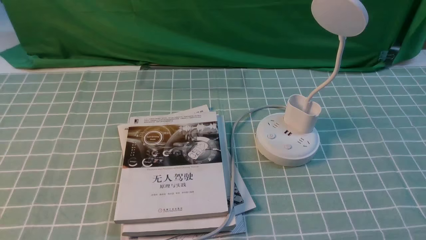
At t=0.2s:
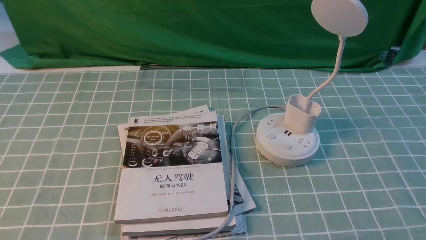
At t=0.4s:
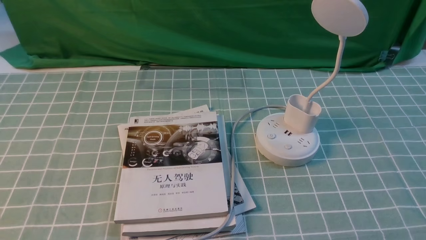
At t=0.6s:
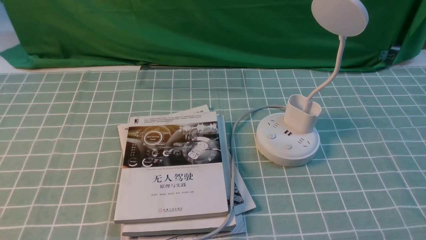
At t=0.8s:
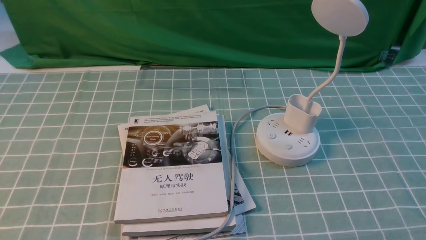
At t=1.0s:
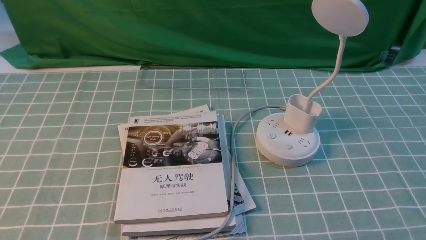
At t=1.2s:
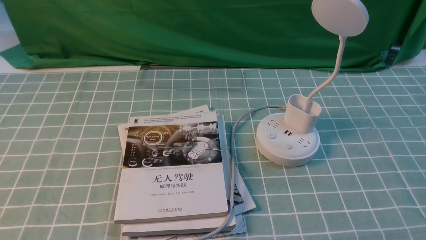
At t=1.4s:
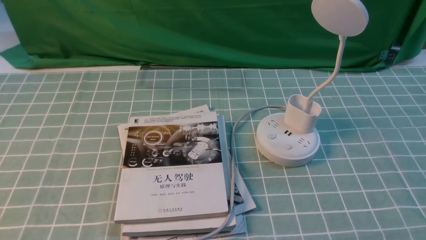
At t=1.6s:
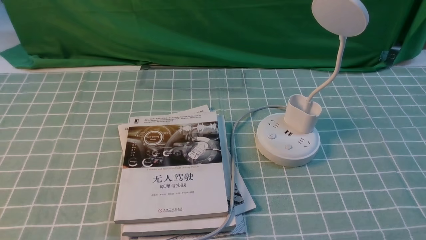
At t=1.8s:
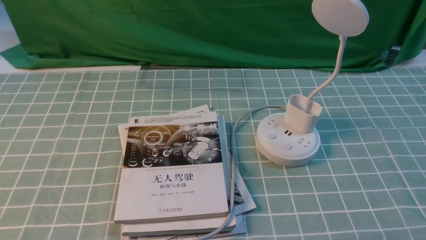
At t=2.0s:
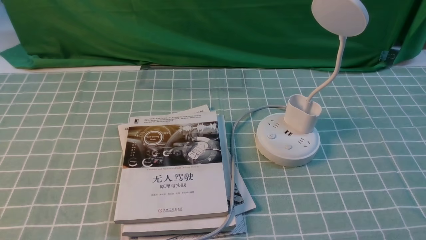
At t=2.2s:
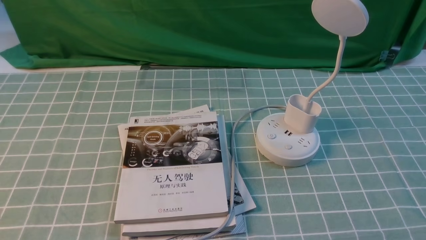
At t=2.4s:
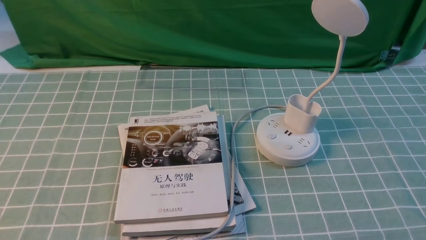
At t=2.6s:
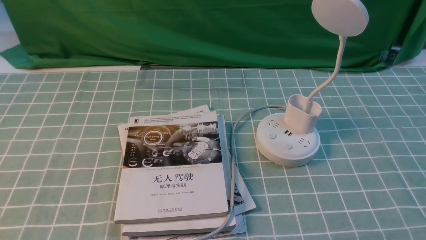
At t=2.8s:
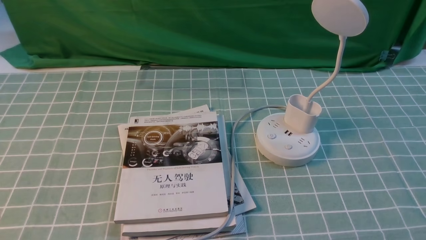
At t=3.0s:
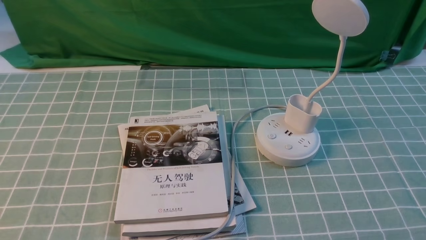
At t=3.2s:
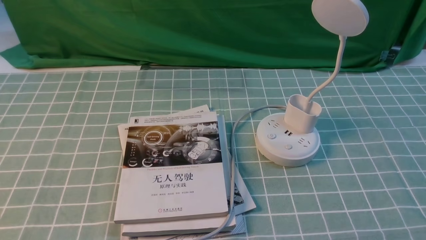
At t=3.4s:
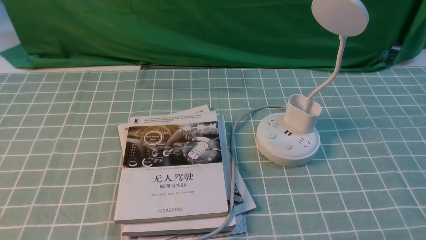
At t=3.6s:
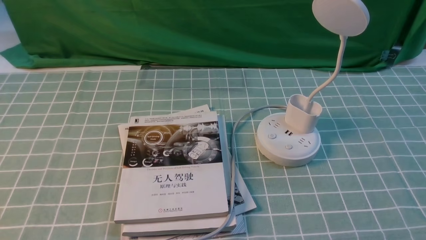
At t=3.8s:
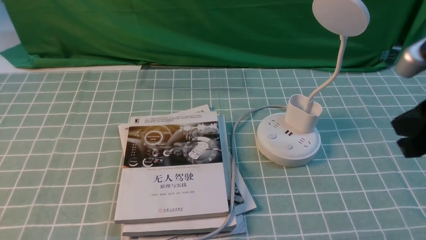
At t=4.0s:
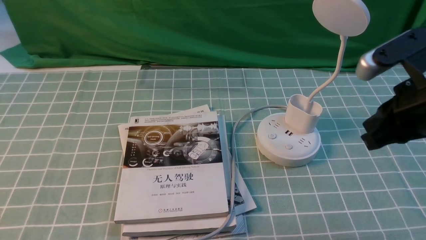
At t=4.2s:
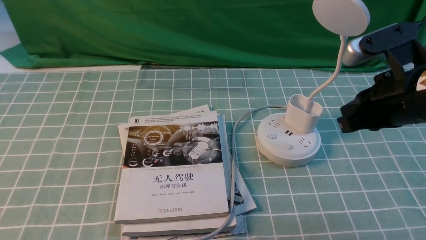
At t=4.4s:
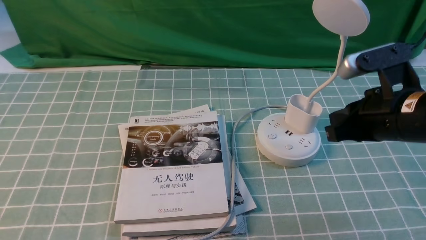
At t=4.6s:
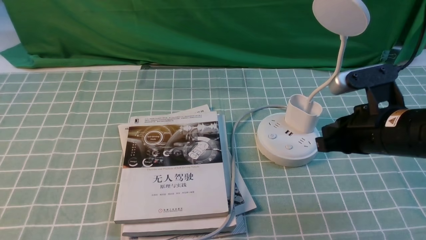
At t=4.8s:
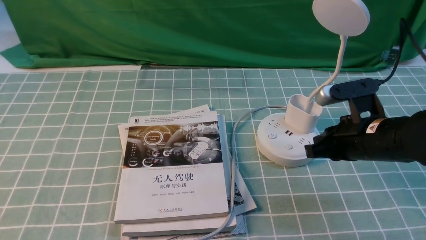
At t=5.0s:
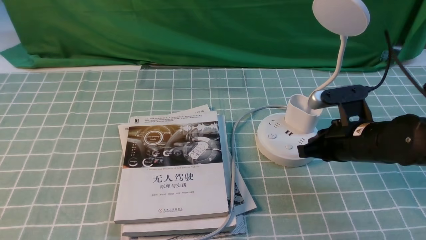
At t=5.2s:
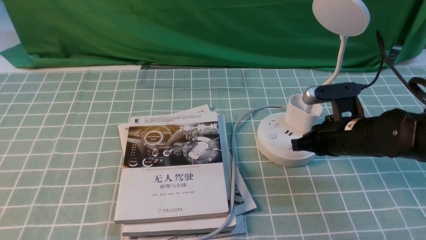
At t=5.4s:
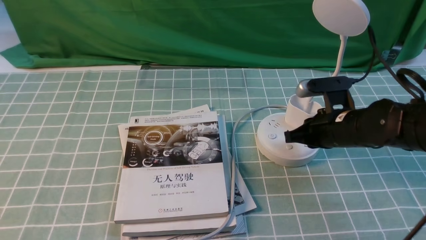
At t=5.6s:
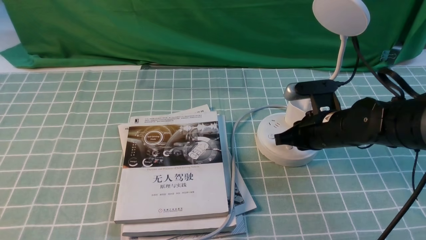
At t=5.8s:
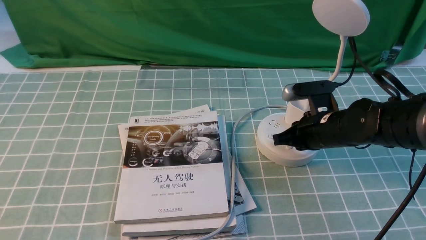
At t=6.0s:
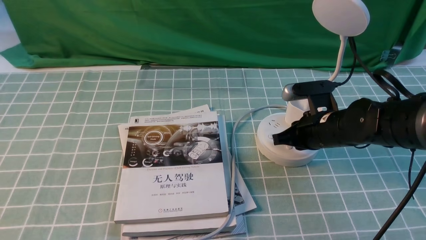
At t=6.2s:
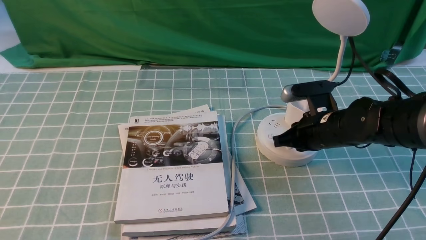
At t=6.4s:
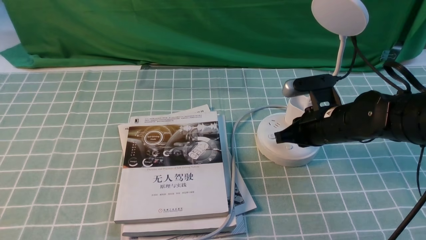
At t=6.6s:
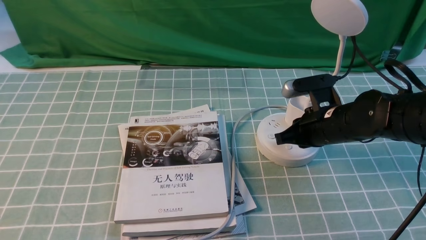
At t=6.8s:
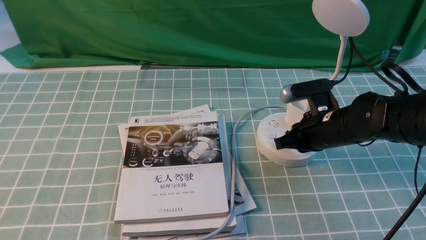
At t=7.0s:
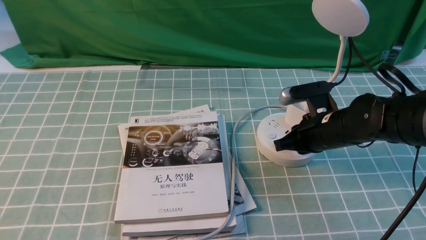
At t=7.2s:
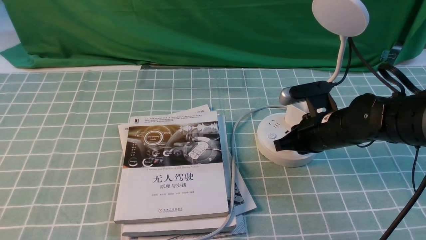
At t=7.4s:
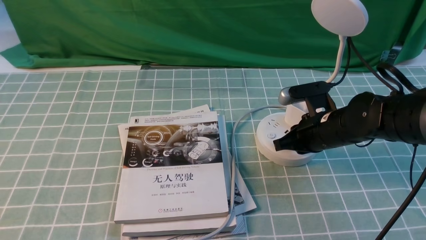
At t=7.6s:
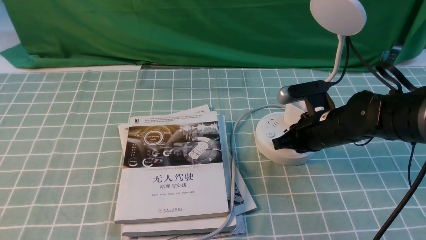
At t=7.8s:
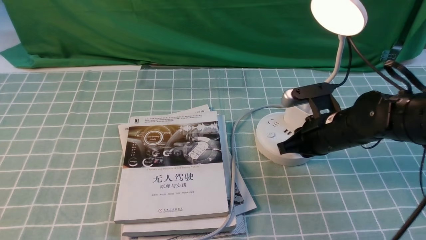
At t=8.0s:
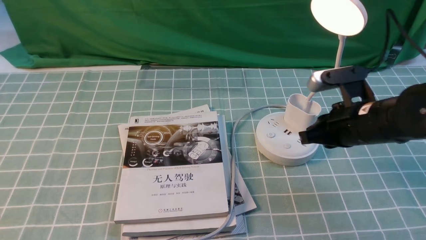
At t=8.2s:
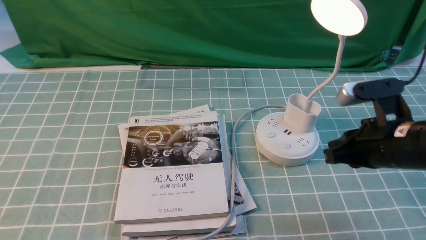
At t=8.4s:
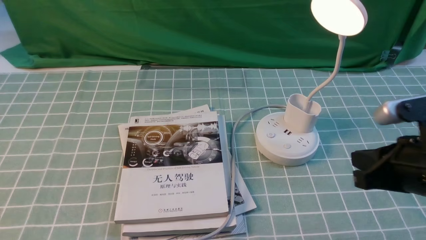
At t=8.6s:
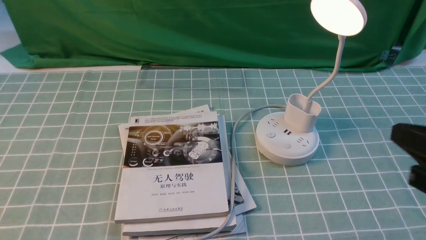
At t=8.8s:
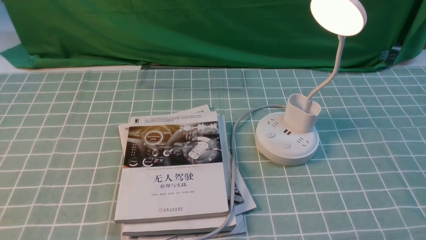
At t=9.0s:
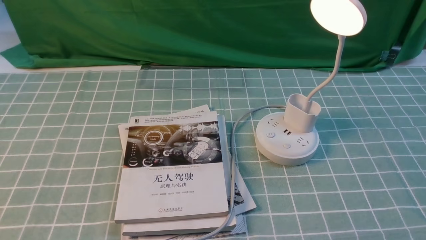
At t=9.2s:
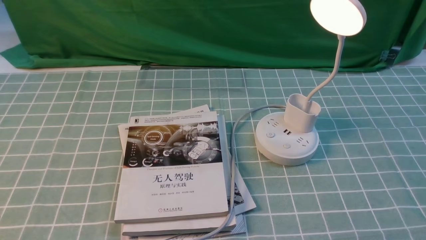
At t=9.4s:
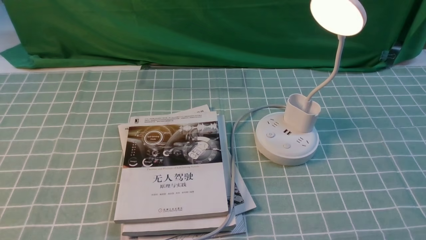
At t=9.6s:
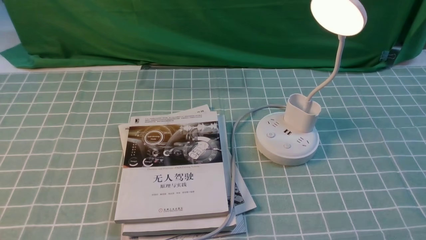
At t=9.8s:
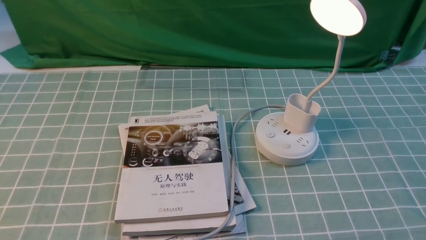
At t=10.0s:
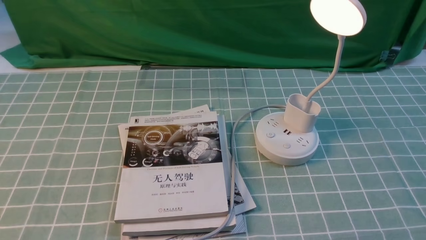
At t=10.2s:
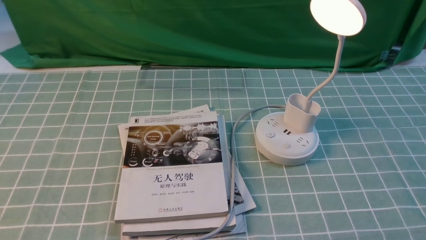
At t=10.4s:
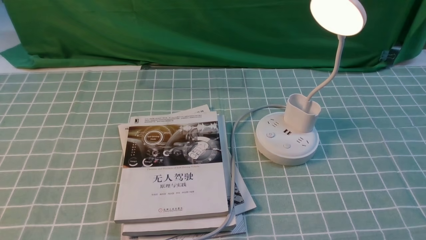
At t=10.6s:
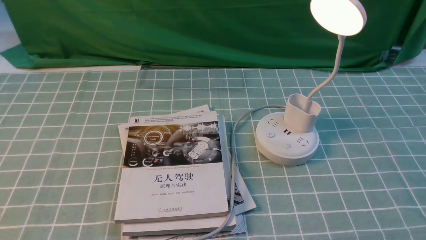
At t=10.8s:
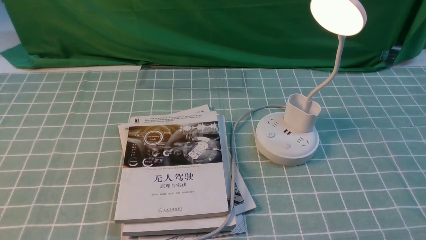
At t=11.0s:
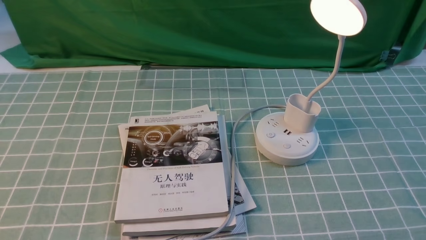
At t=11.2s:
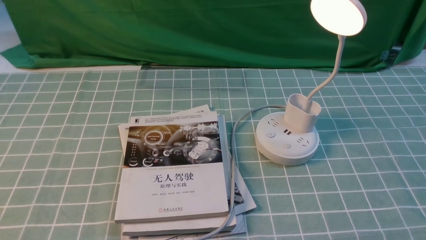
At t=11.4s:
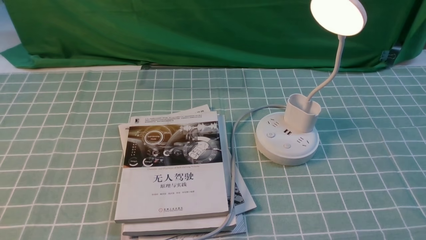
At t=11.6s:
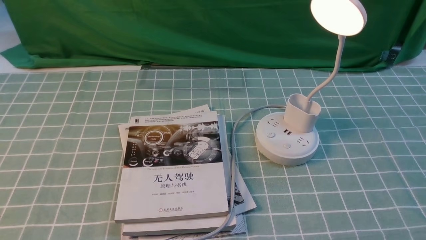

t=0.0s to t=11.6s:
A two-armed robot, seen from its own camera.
Step, t=0.0s to t=8.0s: use the right arm to press the button switch on the lamp holder.
t=2.8s to t=4.4s: The right gripper goes about 25 cm forward and to the left, and closes up.
t=4.4s to t=5.8s: The right gripper heads downward and forward, covering about 15 cm.
t=5.8s to t=7.2s: The grippers move only a little.
t=7.2s to t=8.8s: The right gripper is displaced backward, upward and to the right by approximately 30 cm.
t=10.2s to t=11.6s: The two grippers keep their place.

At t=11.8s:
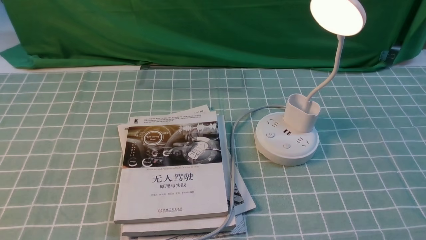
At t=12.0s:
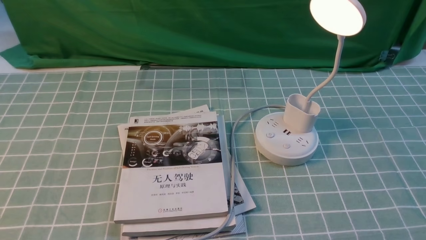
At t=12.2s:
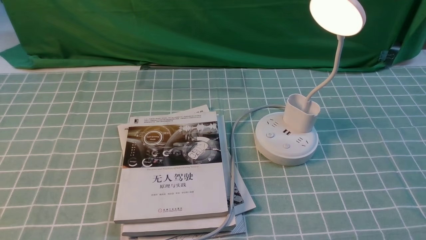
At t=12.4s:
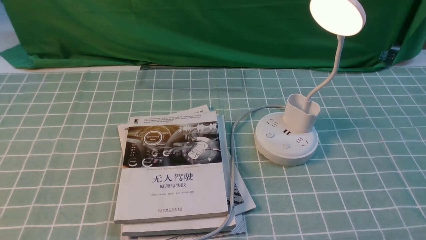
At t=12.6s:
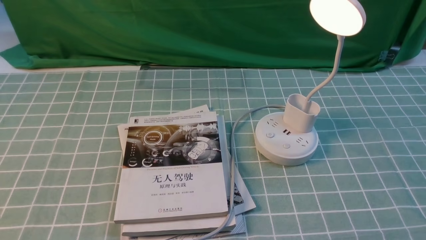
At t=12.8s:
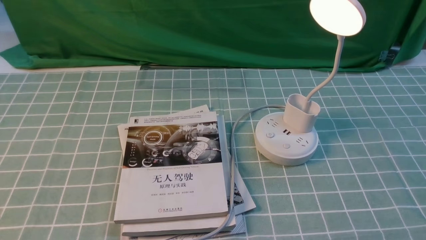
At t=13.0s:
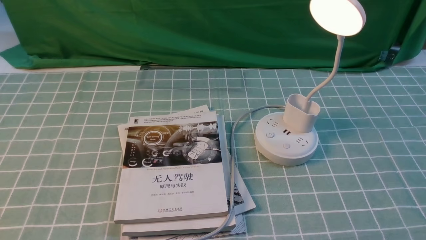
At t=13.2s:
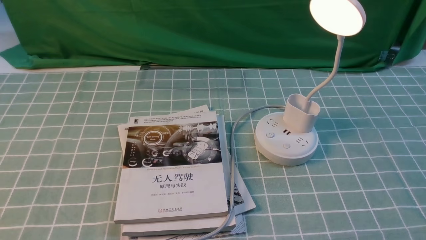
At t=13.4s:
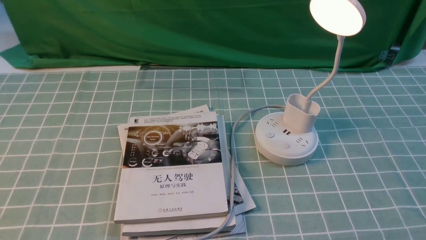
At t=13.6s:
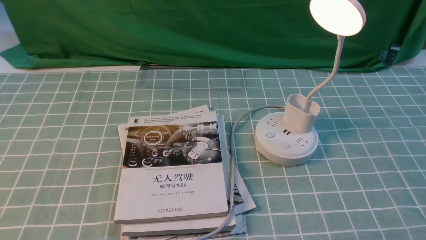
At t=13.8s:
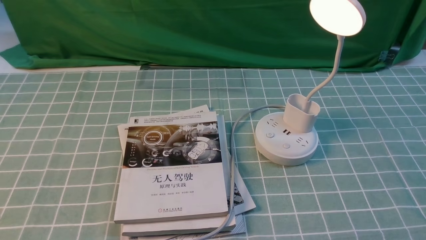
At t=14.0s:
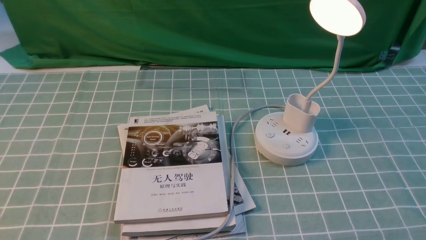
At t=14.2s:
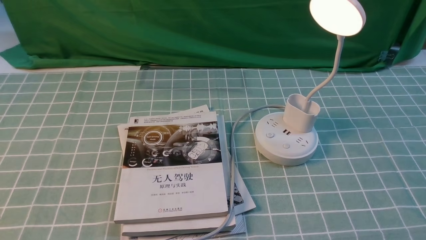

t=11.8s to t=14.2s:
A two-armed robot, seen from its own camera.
t=11.8s to t=14.2s: The two grippers keep their place.

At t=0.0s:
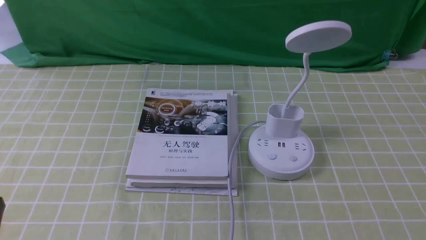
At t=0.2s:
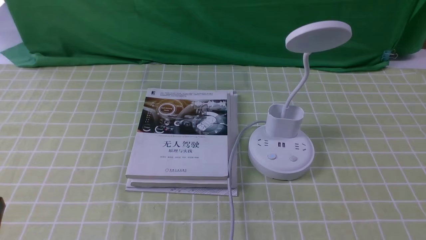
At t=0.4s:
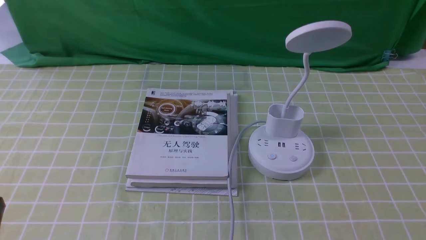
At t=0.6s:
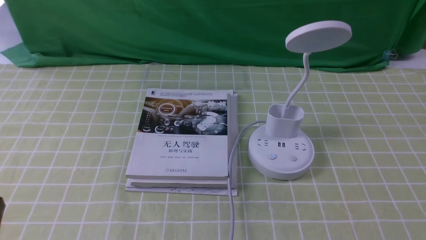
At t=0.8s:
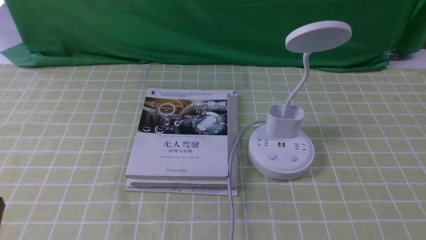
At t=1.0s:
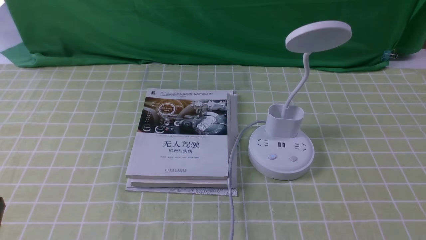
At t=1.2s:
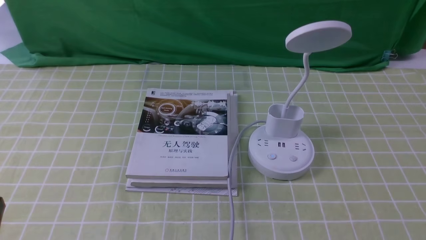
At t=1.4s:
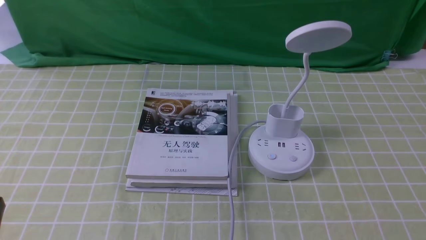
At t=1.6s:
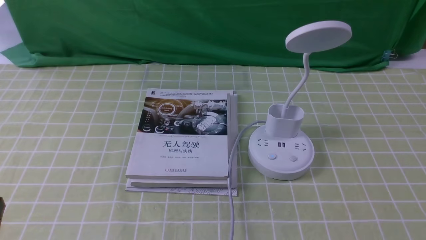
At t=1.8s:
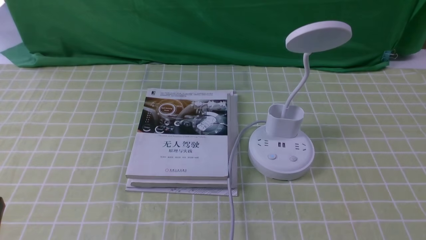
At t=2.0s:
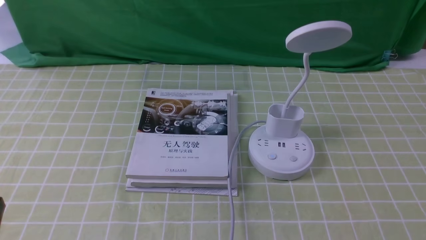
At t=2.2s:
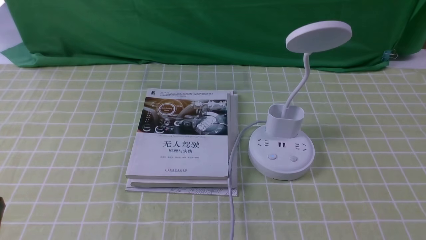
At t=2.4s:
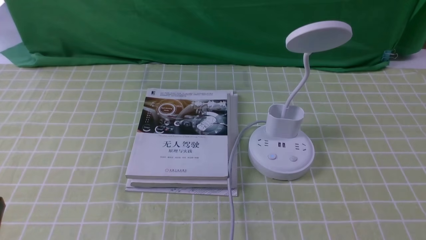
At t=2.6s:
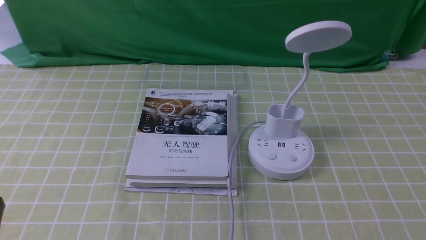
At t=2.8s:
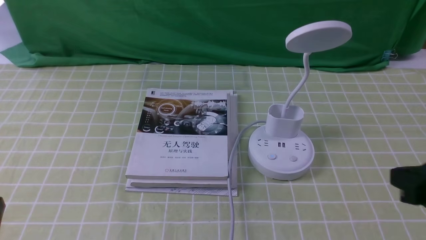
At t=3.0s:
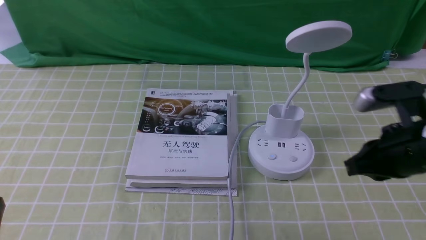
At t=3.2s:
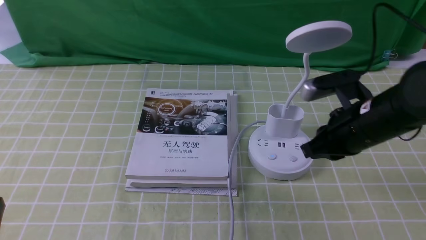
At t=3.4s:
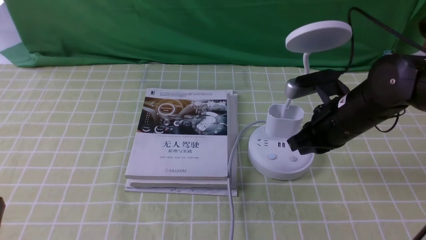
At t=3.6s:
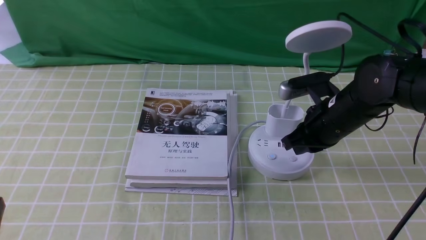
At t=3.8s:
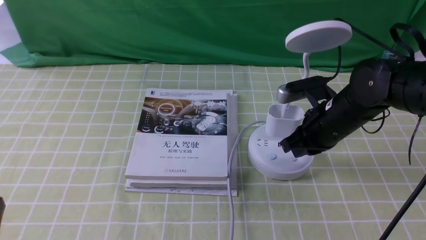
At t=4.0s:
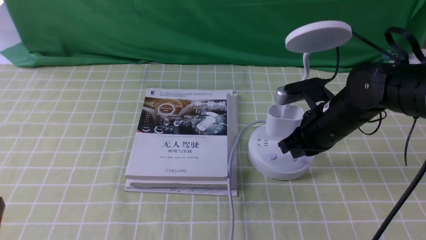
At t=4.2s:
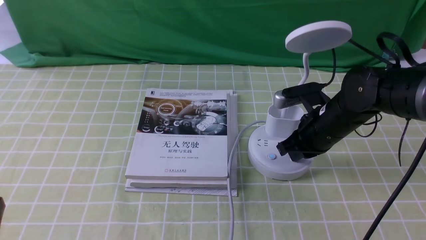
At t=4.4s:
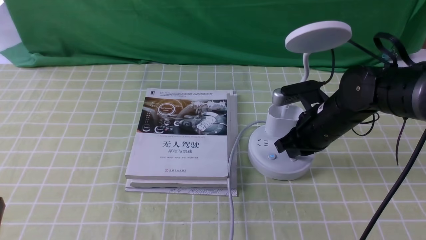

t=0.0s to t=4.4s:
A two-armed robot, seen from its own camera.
t=0.0s to t=1.4s: The two grippers keep their place.
t=1.4s to t=3.0s: The right gripper heads forward, to the left and upward, covering some 20 cm, and closes up.
t=3.0s to t=4.4s: The right gripper travels forward, downward and to the left by about 15 cm.
